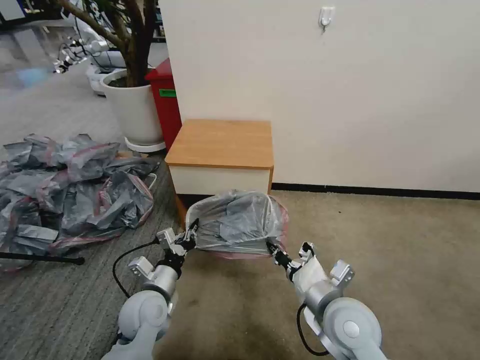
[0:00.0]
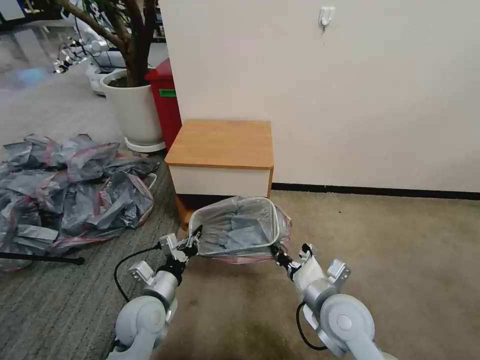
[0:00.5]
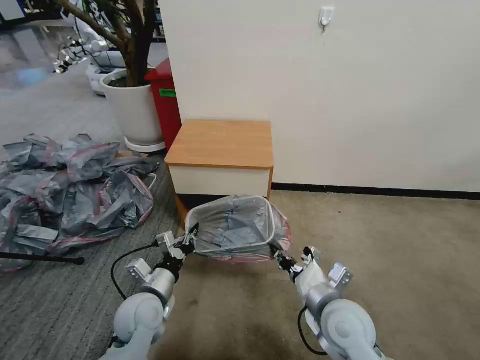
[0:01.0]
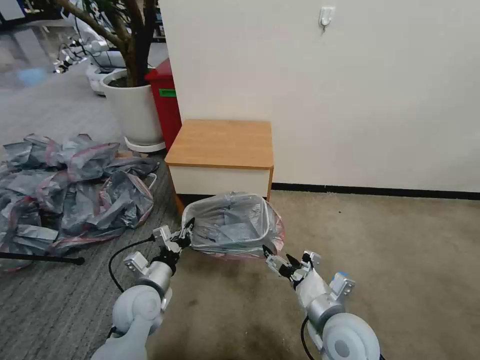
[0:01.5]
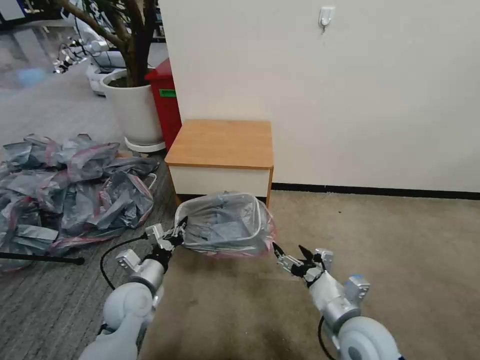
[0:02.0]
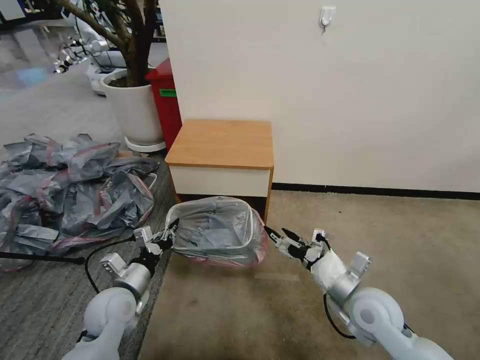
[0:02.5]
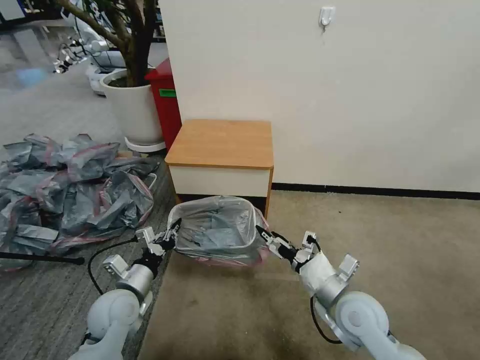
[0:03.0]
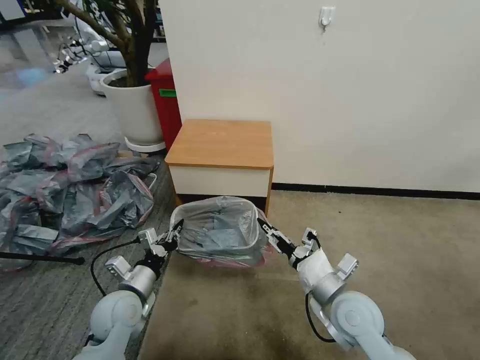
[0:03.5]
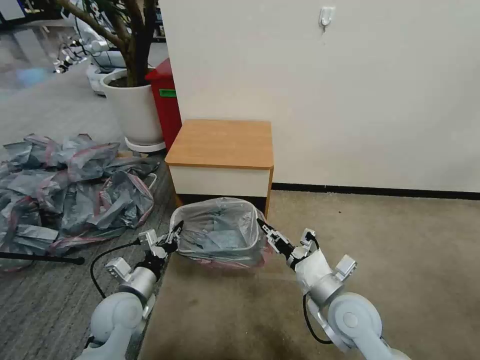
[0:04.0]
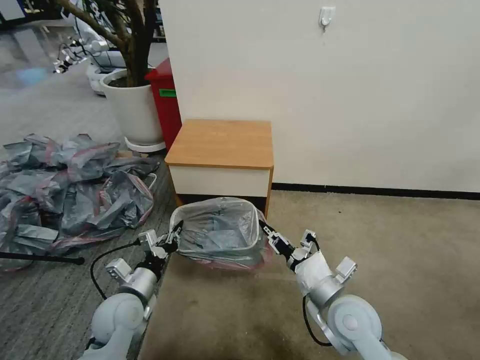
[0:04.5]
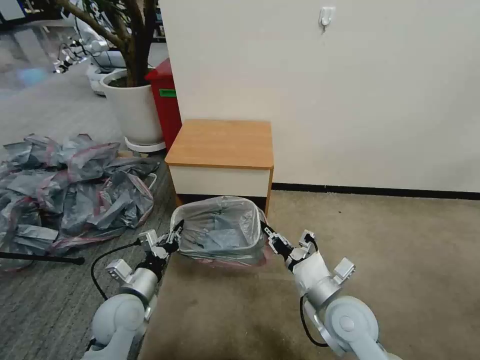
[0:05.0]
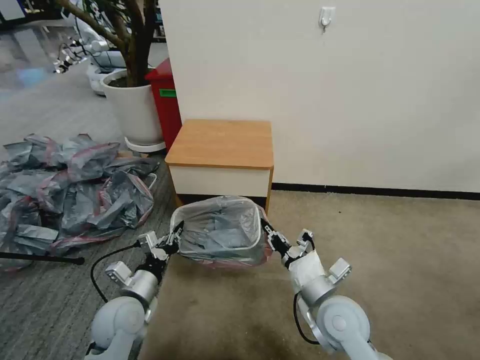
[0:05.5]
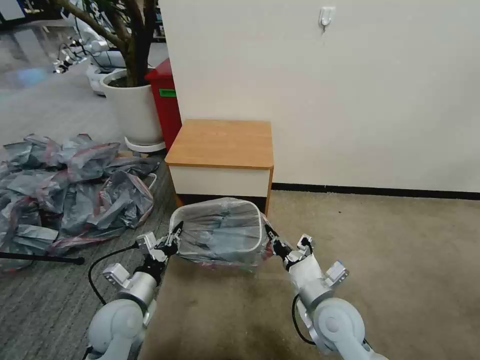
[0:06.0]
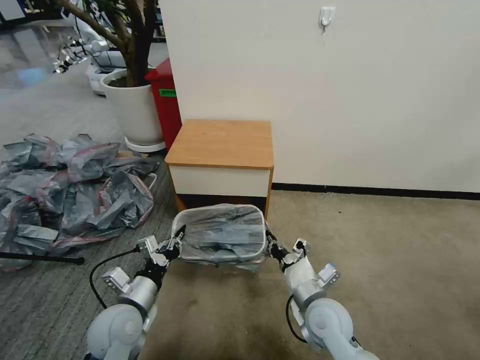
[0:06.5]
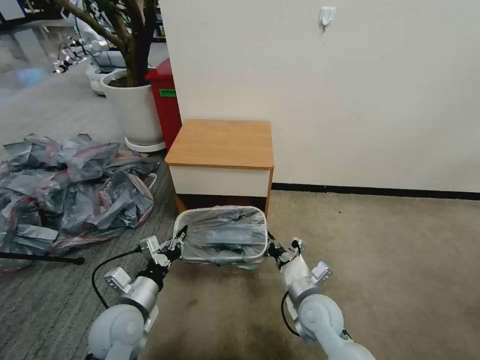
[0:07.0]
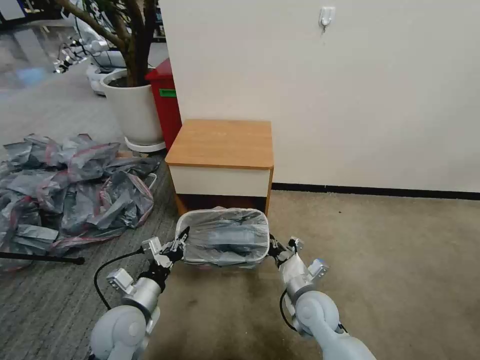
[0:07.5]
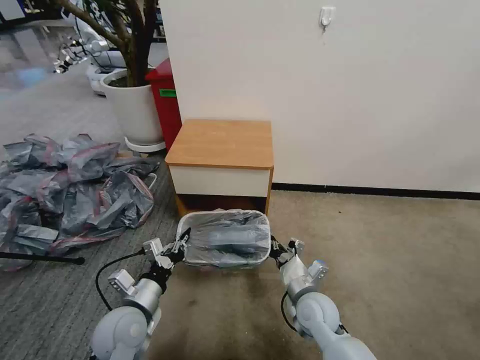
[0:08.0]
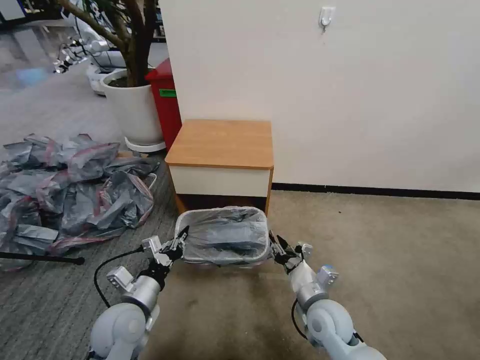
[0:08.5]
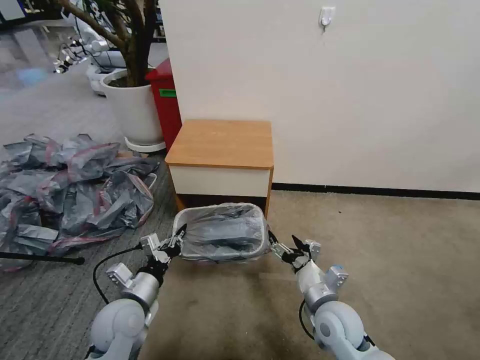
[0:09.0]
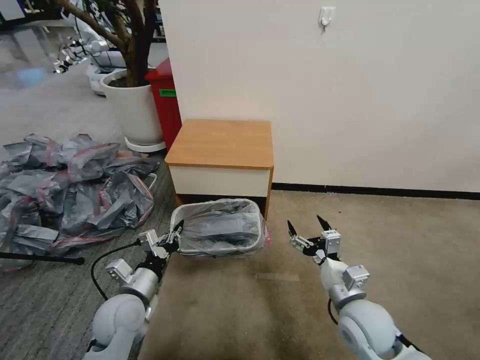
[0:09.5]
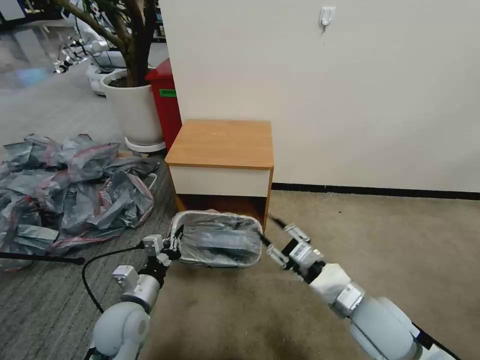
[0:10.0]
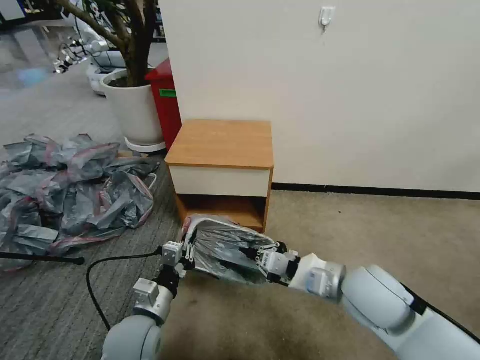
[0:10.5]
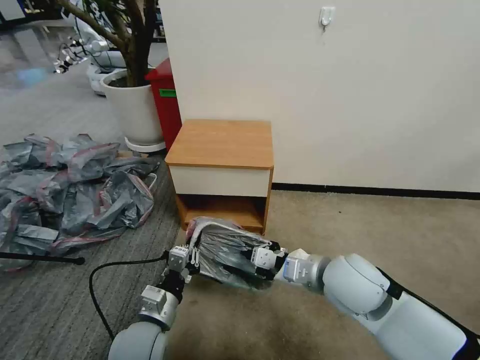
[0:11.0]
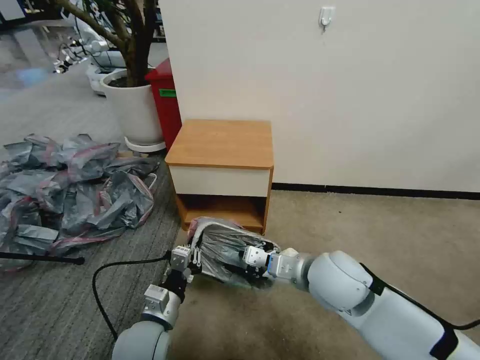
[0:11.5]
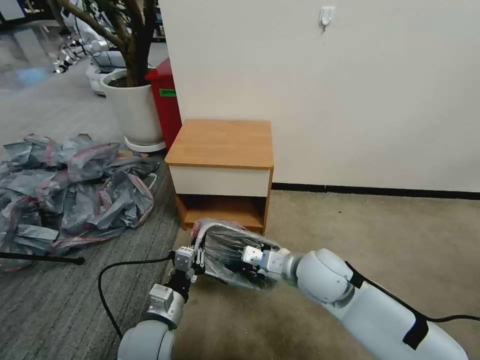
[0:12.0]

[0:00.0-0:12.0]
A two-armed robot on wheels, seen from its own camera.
Task of the whole recording: Pick up the garbage bag from the table and place it over the trash can.
0:00.0 to 0:02.0: The right gripper ends up roughly 5 cm from where it was, and opens.
0:02.0 to 0:04.0: The right gripper closes its fingers.
0:04.0 to 0:06.0: The right gripper closes.
0:06.0 to 0:08.0: The right gripper travels downward by approximately 5 cm.
0:08.0 to 0:10.0: The right gripper heads upward and to the right, covering approximately 15 cm, and opens up.
0:10.0 to 0:12.0: The right gripper travels to the left and forward by some 10 cm, and closes; the left gripper heads to the right, covering some 5 cm.

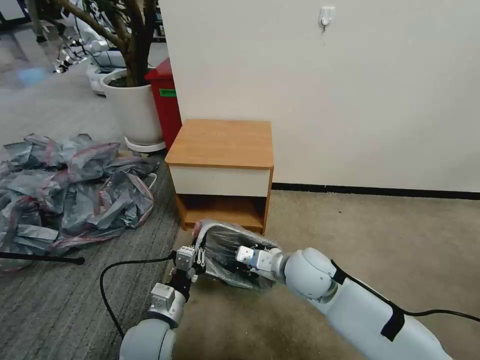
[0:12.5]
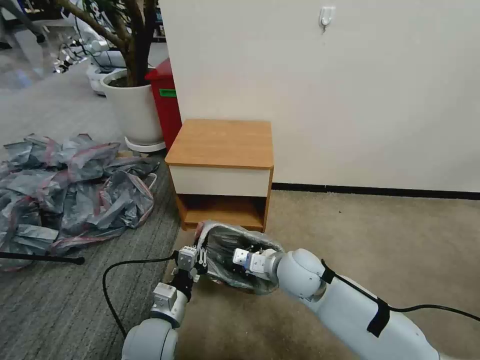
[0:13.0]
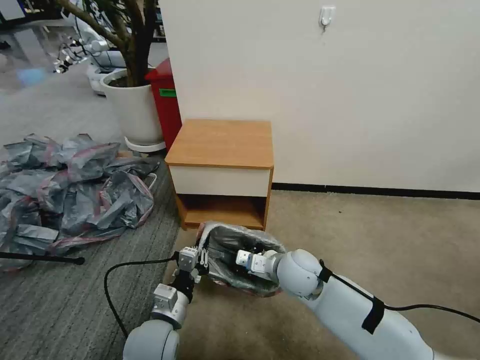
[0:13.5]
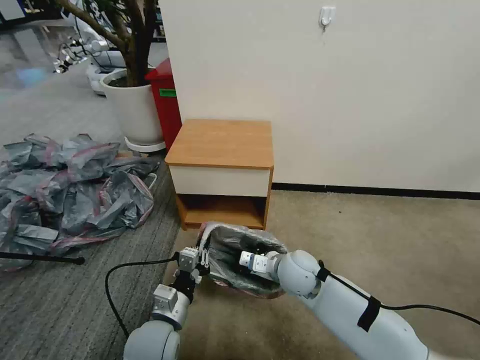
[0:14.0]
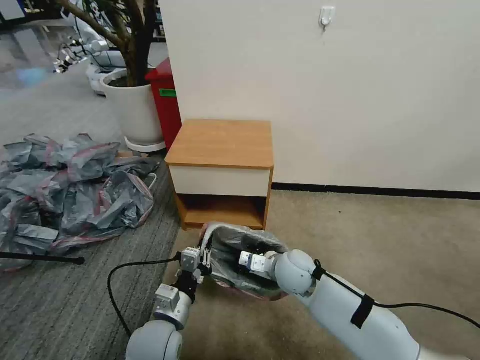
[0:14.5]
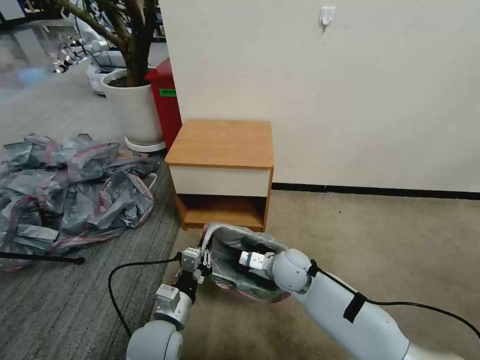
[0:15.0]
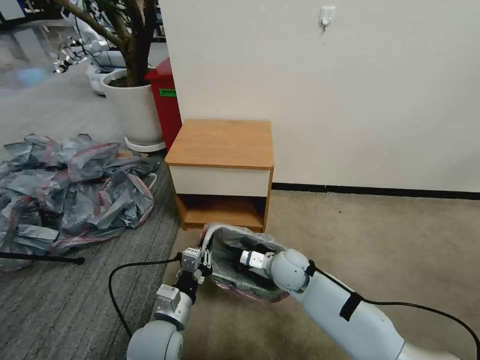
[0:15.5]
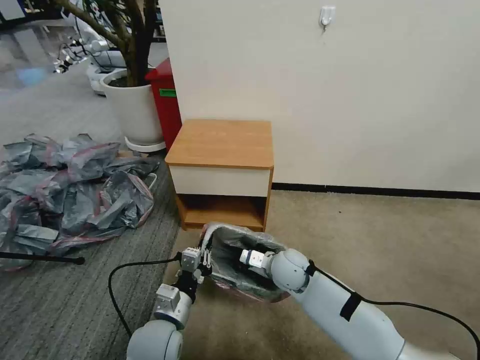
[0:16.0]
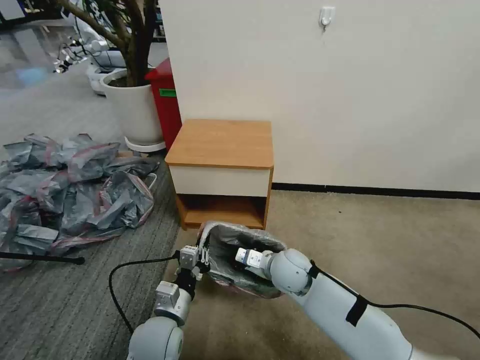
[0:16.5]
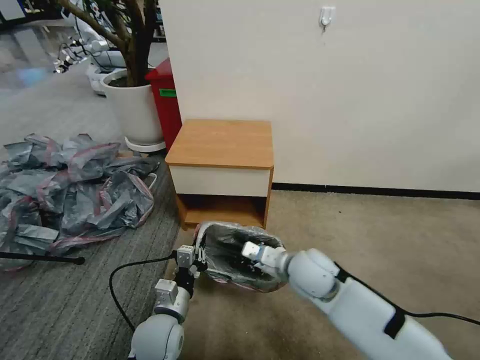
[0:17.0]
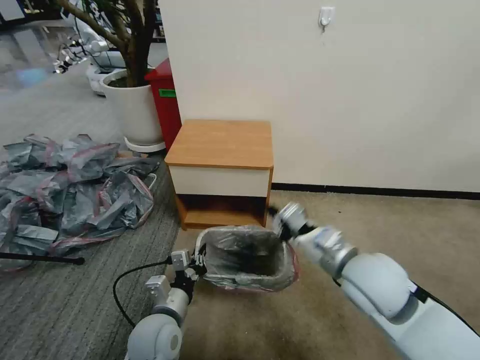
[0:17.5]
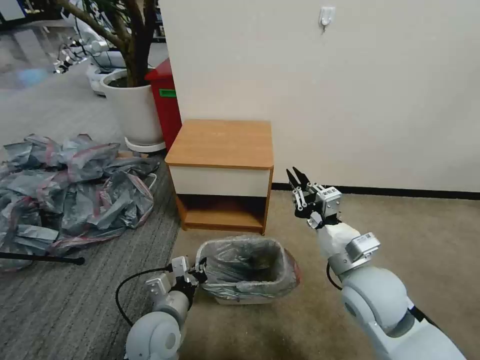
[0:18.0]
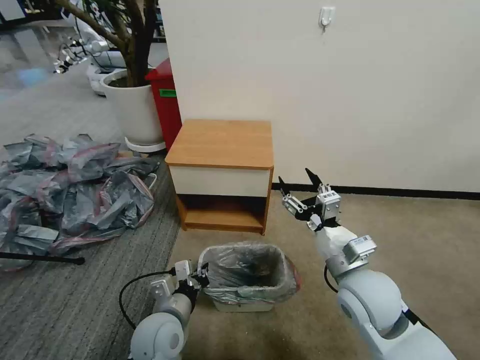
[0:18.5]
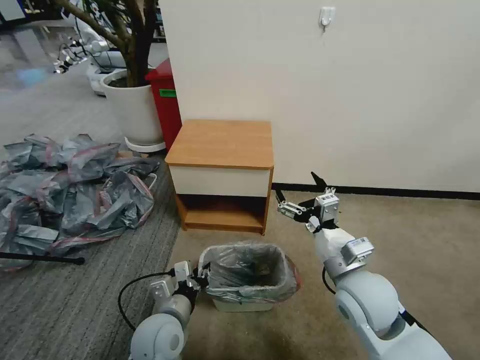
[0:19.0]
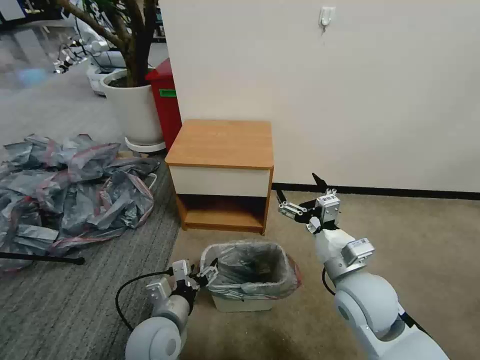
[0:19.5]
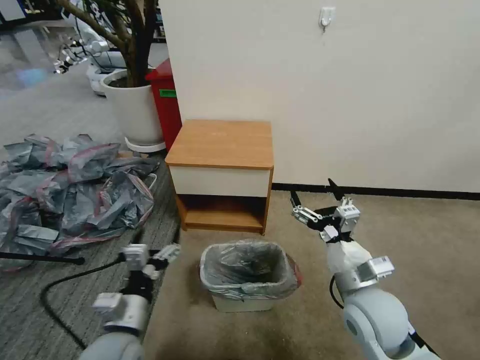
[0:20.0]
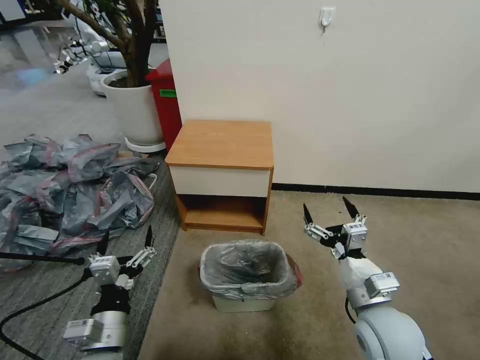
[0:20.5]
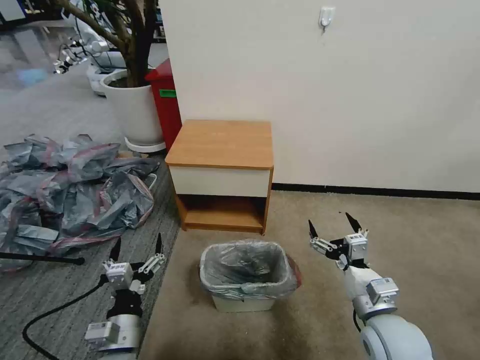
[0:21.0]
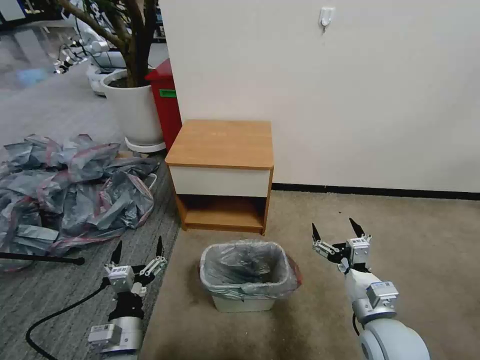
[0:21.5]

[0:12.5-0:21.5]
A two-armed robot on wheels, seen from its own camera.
Task of the whole recording: Pick up the garbage bag from the table and place it over the trash can.
0:12.5 to 0:14.5: The right gripper is displaced downward by some 5 cm.
0:14.5 to 0:17.0: The right gripper heads upward, covering roughly 5 cm.
0:17.0 to 0:19.5: The right gripper heads to the right and backward, covering approximately 10 cm, and opens up, while the left gripper opens its fingers.
0:19.5 to 0:21.5: The left gripper moves to the left and backward, about 10 cm, while the right gripper shifts about 10 cm downward, backward and to the right.

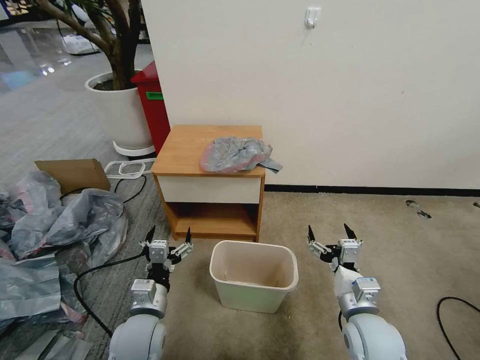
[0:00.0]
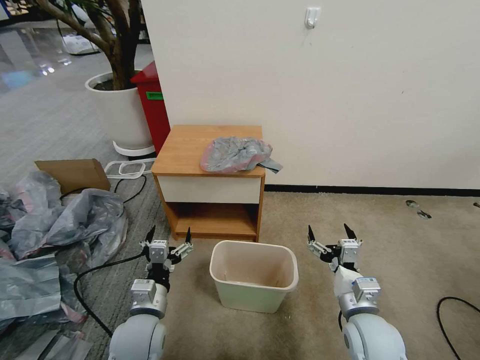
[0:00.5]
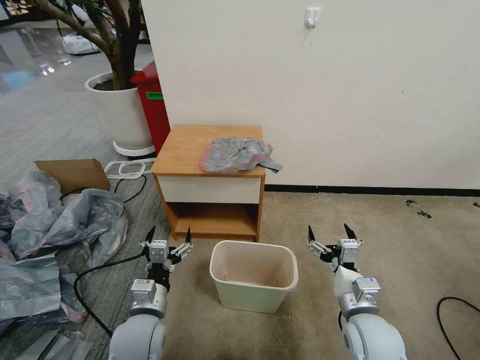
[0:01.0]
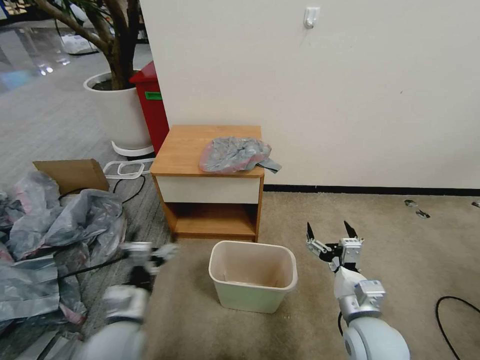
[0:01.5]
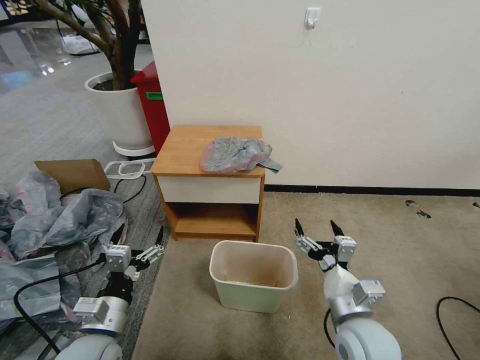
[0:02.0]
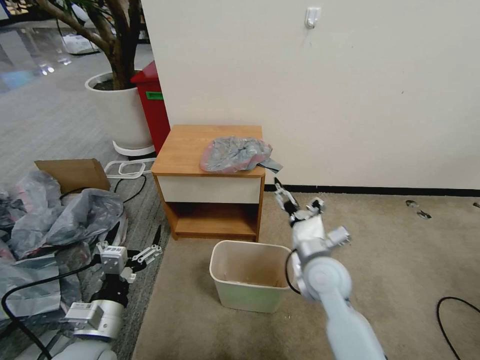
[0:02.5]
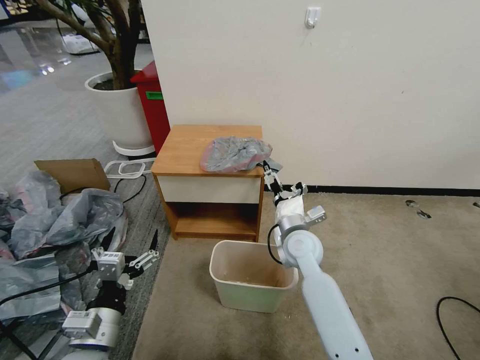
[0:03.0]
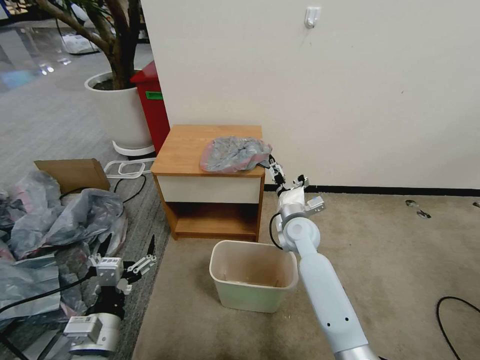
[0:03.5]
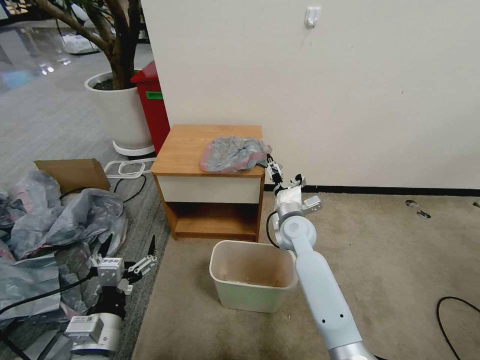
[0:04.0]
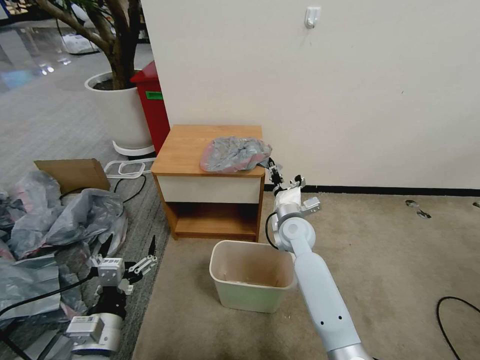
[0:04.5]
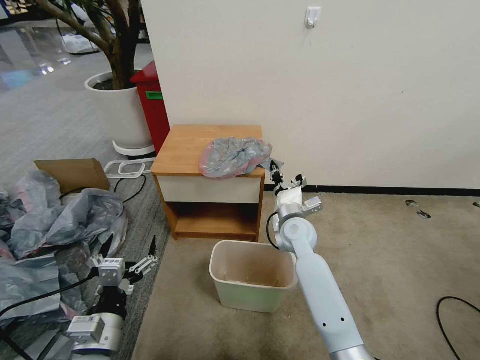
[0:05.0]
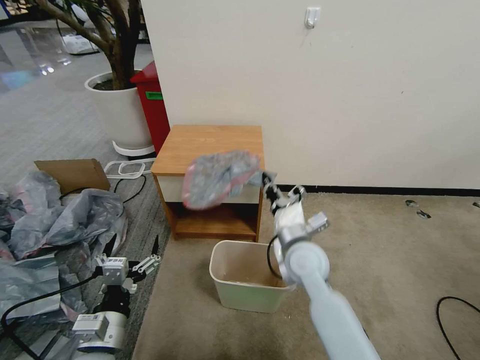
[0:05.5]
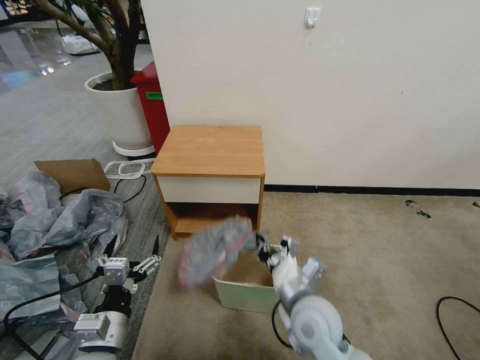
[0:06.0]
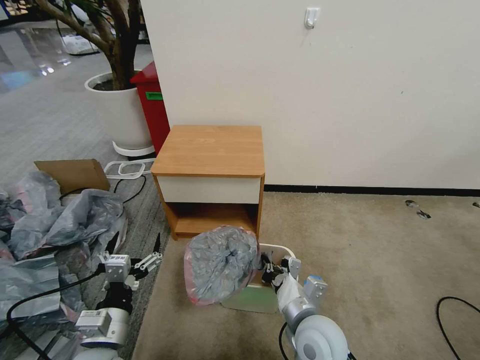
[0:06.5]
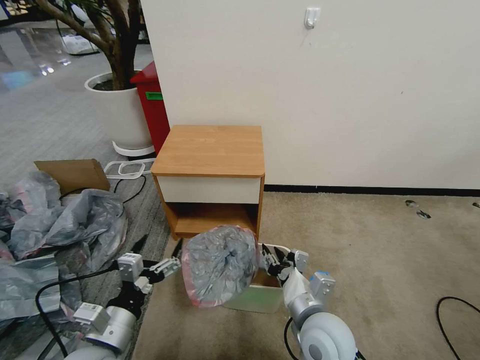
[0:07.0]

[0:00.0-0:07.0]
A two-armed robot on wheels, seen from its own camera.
Task of the whole recording: Pick up the garbage bag from the table and place it over the trash can.
0:02.0 to 0:03.5: The right gripper moves forward, roughly 25 cm.
0:03.5 to 0:05.0: The right gripper closes its fingers.
0:05.0 to 0:07.0: The right gripper heads backward, covering roughly 25 cm, and opens.
